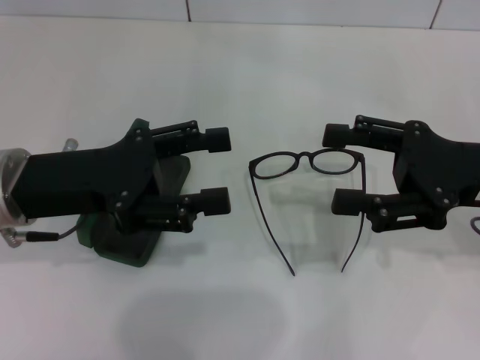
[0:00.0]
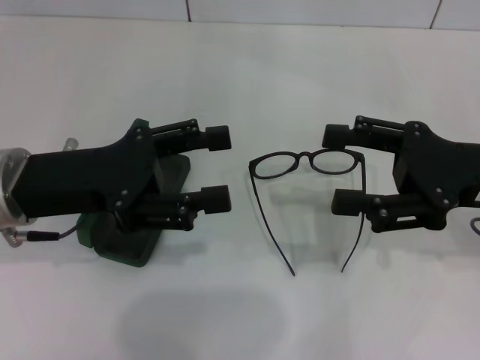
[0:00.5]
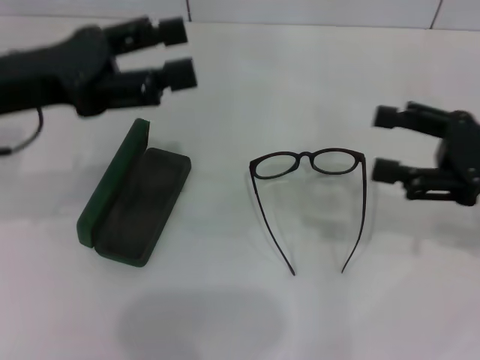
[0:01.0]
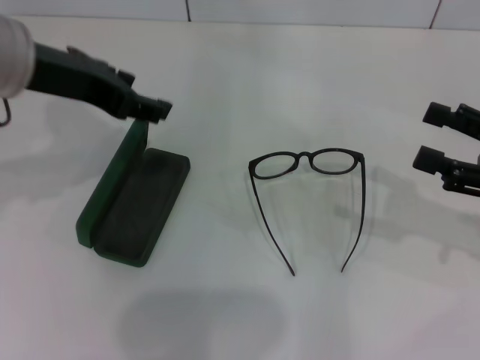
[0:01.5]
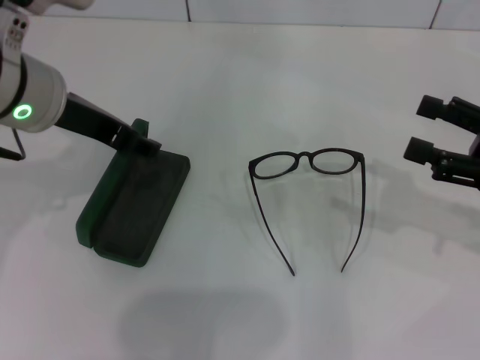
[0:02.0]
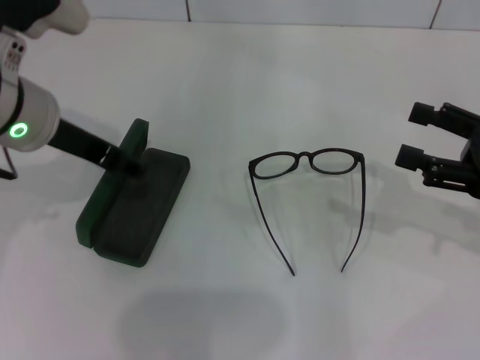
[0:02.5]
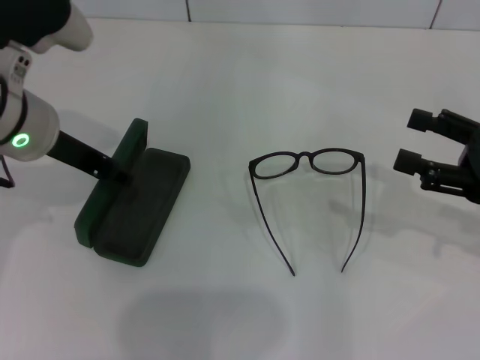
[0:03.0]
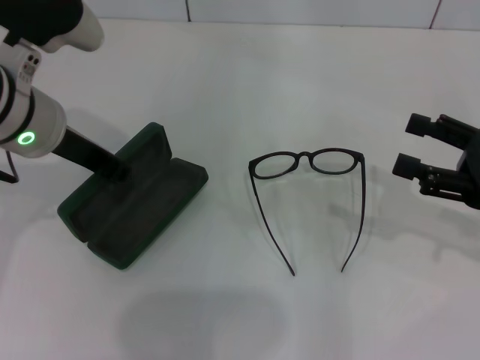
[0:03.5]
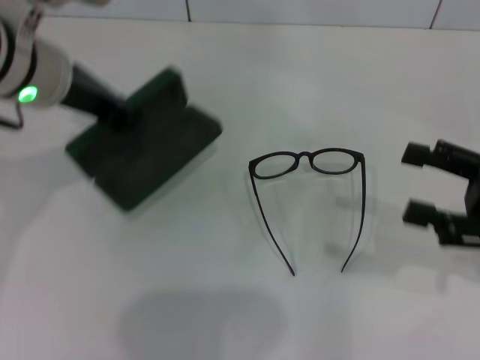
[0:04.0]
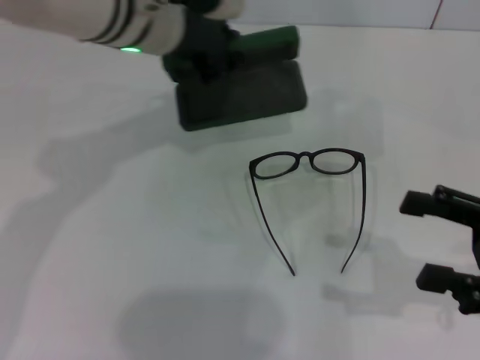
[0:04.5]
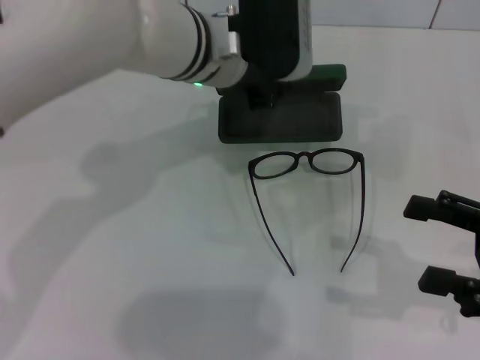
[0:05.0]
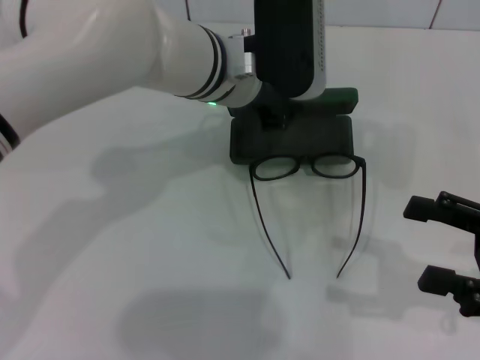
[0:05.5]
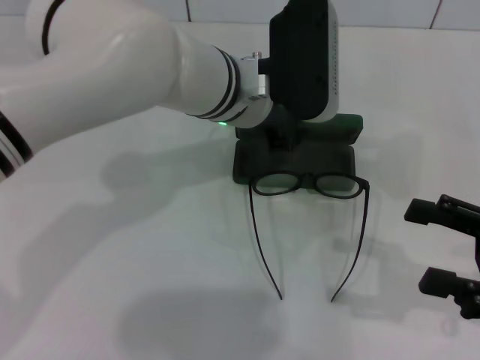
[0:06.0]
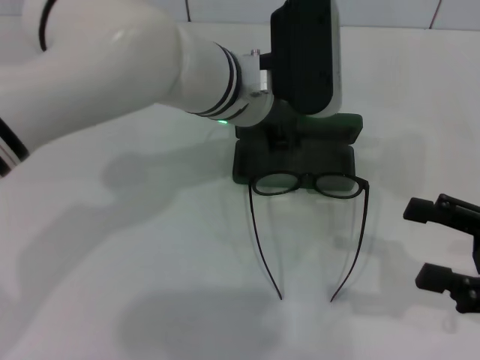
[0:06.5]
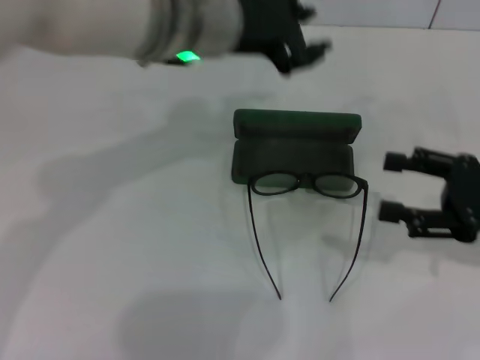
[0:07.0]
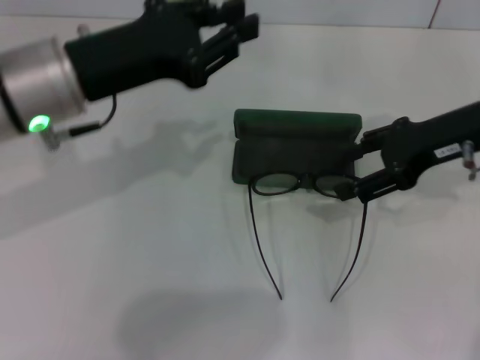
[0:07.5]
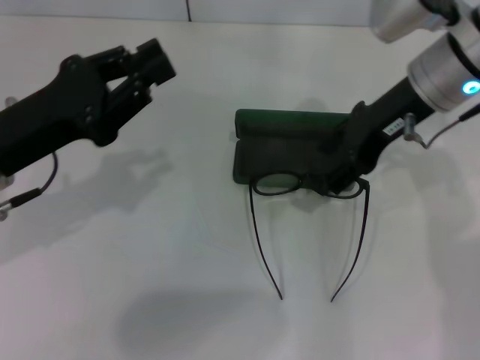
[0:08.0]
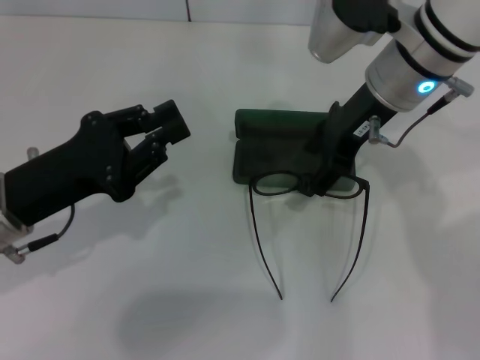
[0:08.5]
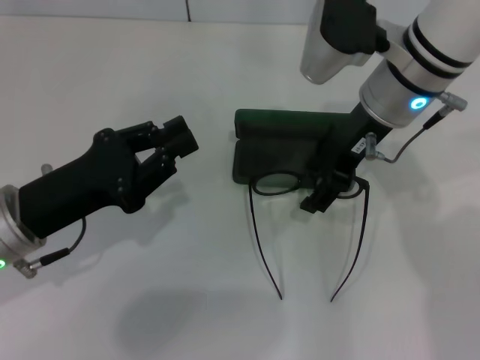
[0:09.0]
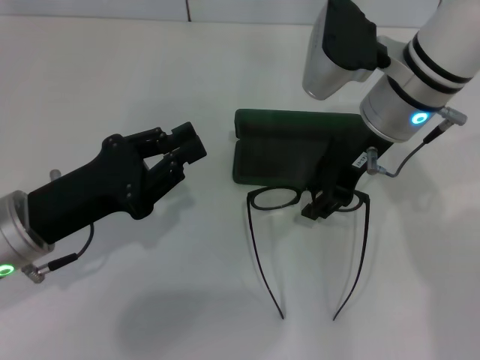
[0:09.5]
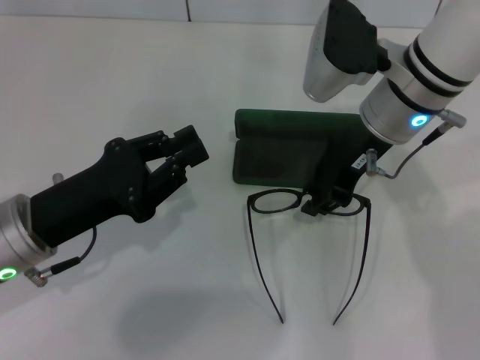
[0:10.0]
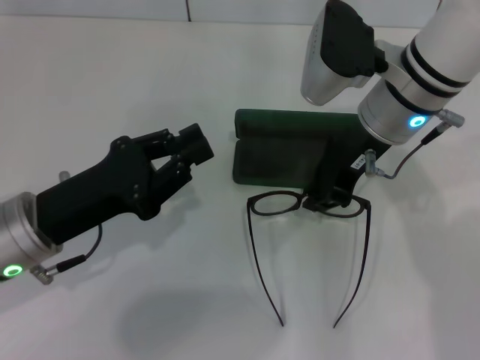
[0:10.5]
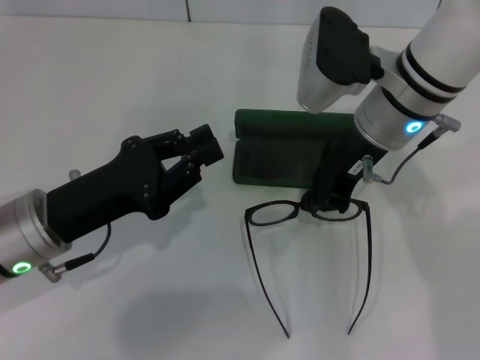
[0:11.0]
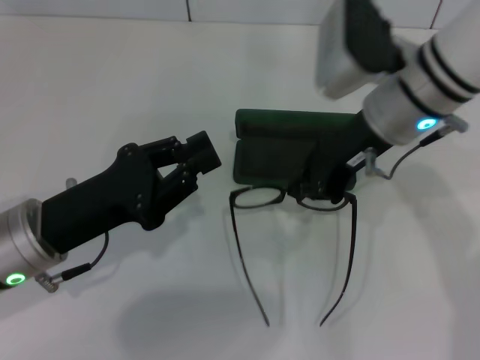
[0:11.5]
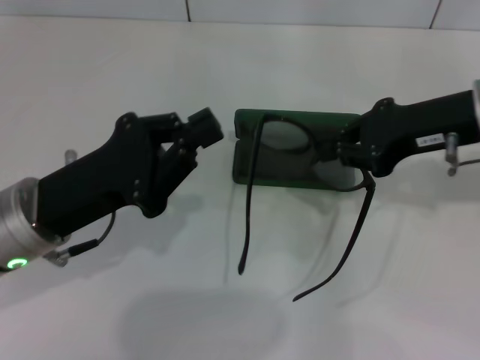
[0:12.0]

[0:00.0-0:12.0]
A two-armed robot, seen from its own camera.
Step, 0.0 to 3.0 s: Grab the glasses case with your left hand.
Step, 4.0 to 6.0 s: Place the glasses case in the center of the table with your left hand.
Step, 6.5 to 11.0 s: Grab the eyeglass frame with your right hand.
0.0 to 2.0 s: The right gripper shifts some 5 cm to the right, while the left gripper shifts roughly 10 cm upward and forward.
2.0 to 4.0 s: The left gripper closes up.
4.0 to 6.0 s: The left gripper travels to the right and downward by approximately 15 cm.
6.0 to 8.0 s: The right gripper heads forward, to the left and upward, covering roughly 25 cm. The left gripper moves to the left and backward, about 25 cm.
8.0 to 10.0 s: The right gripper changes place by some 5 cm, and closes up. Meanwhile the left gripper travels downward by roughly 5 cm.
10.0 to 12.0 s: The right gripper heads to the right, covering approximately 10 cm, and closes up.

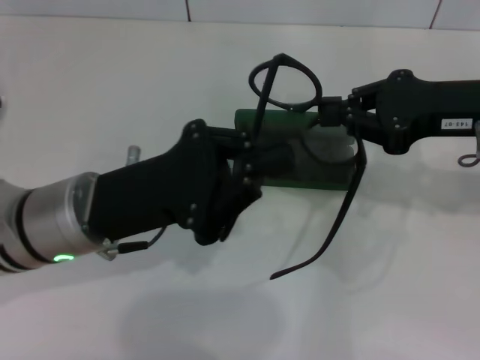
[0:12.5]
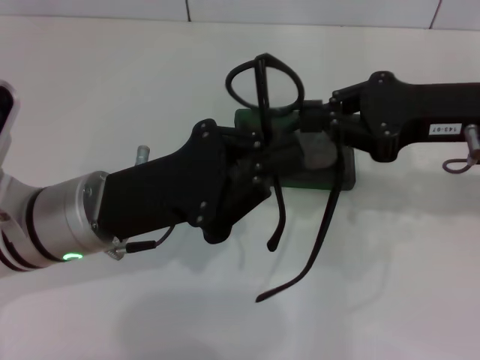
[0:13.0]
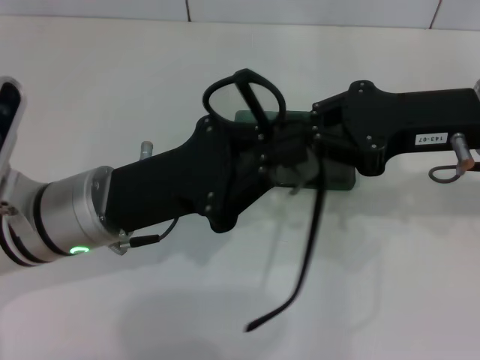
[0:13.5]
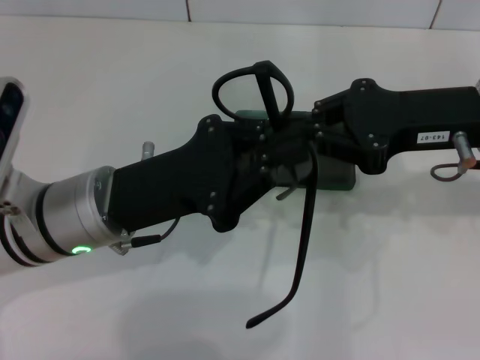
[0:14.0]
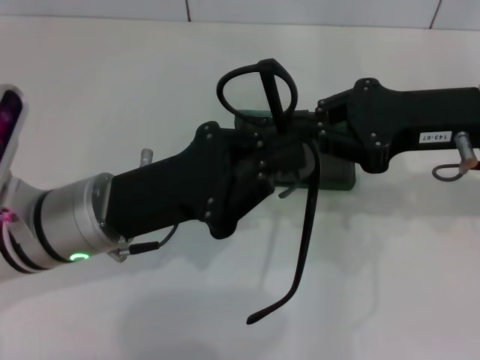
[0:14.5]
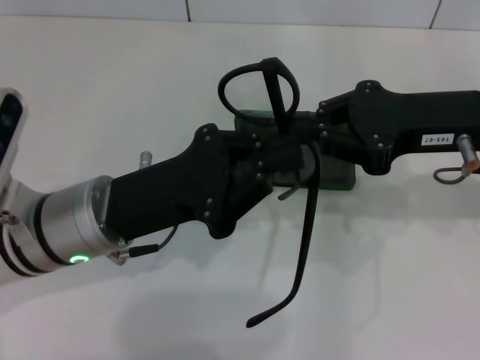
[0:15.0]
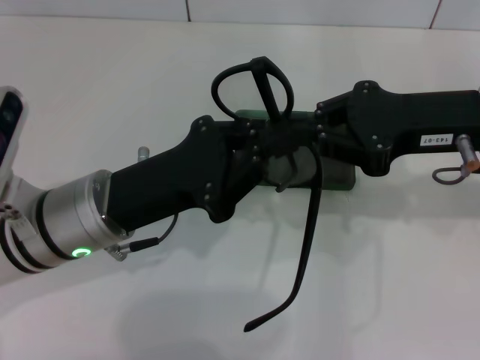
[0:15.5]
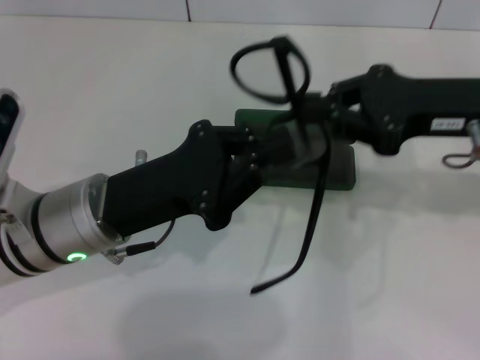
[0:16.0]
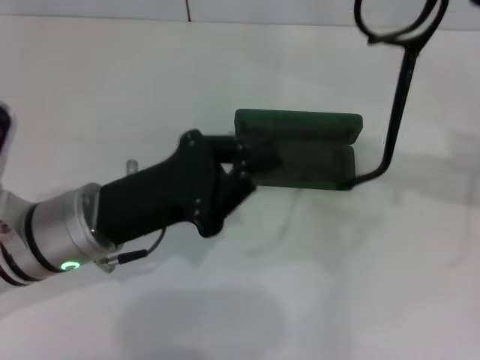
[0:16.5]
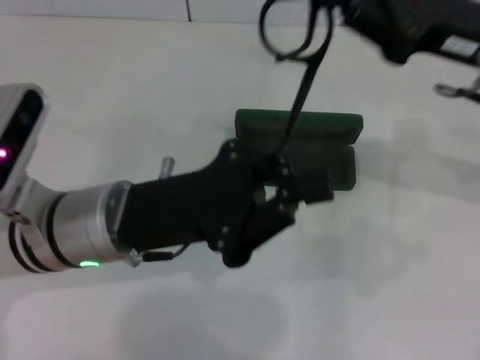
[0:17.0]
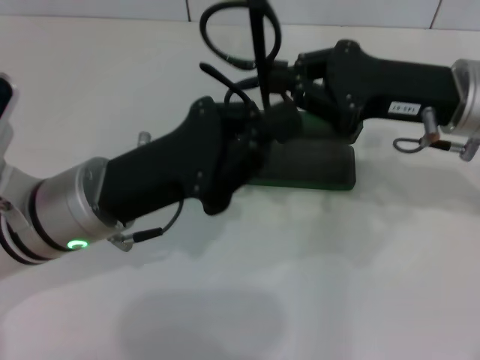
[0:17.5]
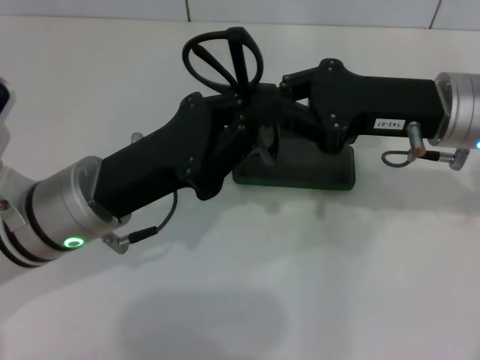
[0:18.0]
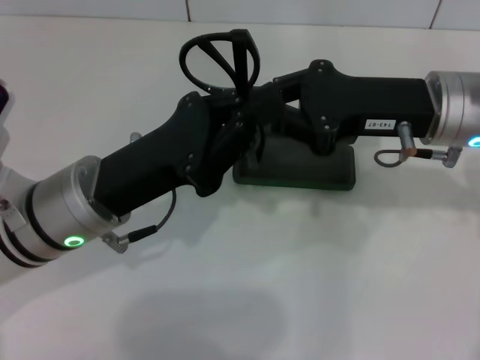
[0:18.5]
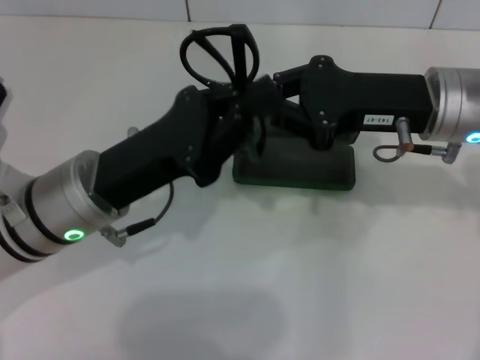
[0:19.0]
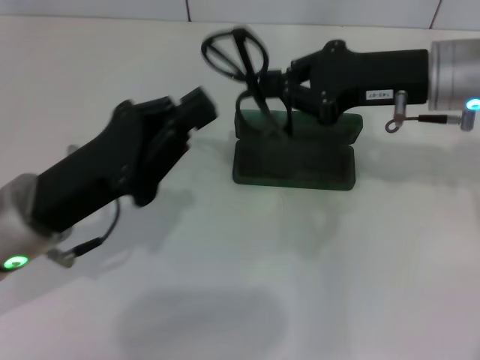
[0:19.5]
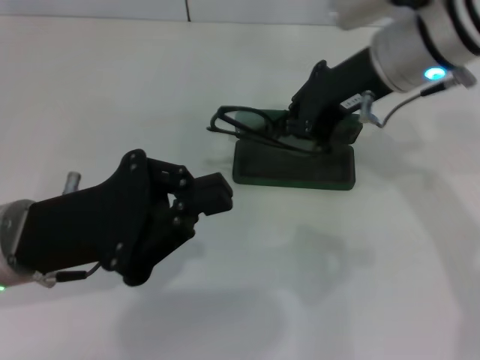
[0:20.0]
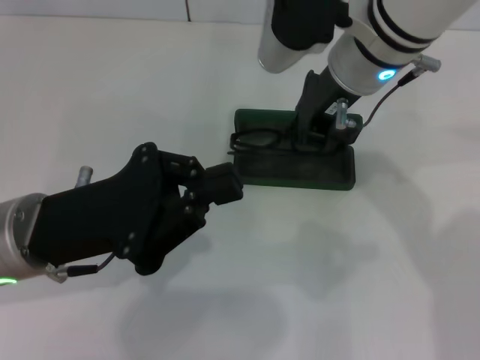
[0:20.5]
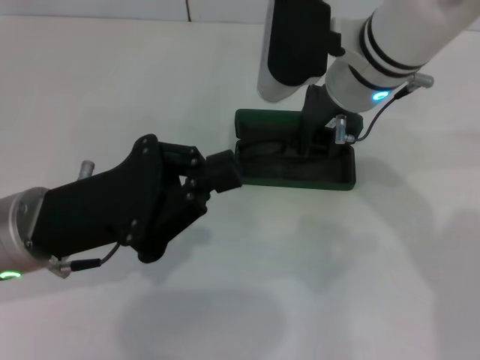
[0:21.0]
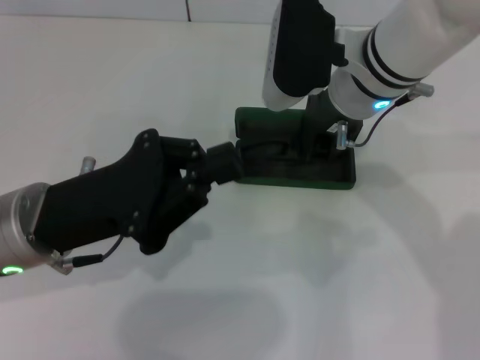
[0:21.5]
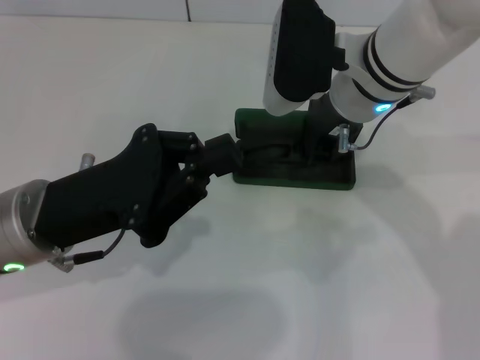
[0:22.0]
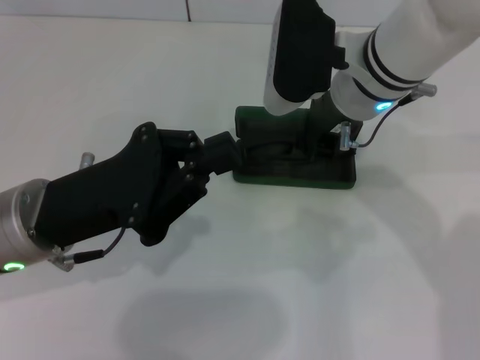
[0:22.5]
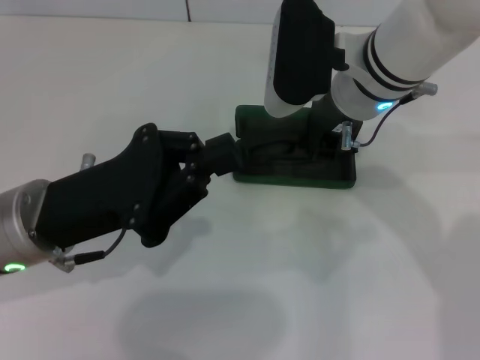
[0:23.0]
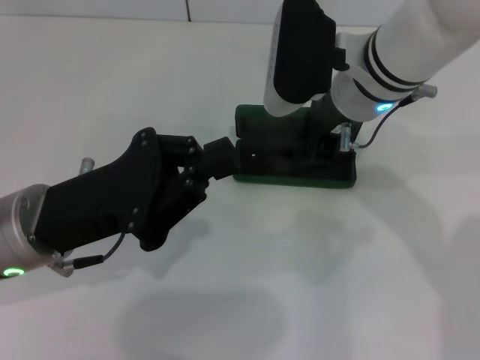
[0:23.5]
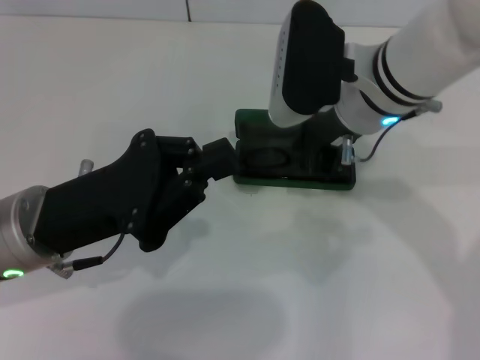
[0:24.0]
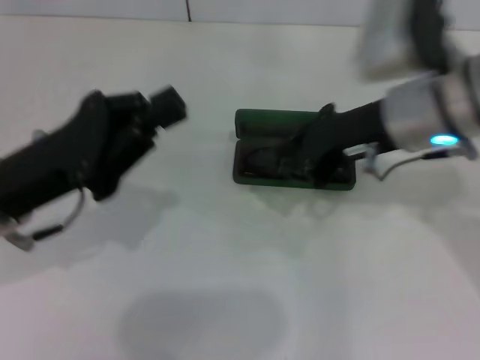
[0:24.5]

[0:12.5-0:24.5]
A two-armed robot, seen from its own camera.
Step, 12.5 to 19.0 s: Lift the glasses with your right hand.
Step, 19.5 to 23.5 s: Put the glasses into the case with your right hand.
12.5 to 14.5 s: The grippers make only small movements.
14.5 to 16.5 s: The right gripper heads to the right, covering approximately 5 cm.
16.5 to 18.5 s: The right gripper heads to the left and downward, covering roughly 15 cm.
18.5 to 20.5 s: The right gripper travels to the left by some 10 cm.
20.5 to 22.5 s: There are only small adjustments of the grippers.
22.5 to 24.5 s: The right gripper travels to the right and backward by approximately 10 cm.

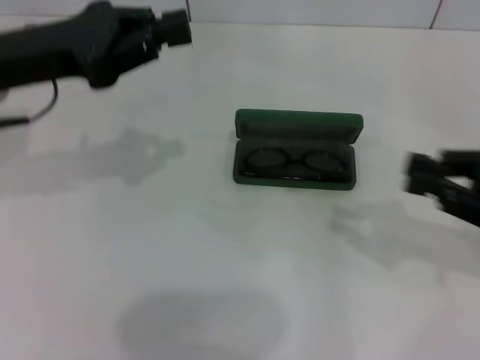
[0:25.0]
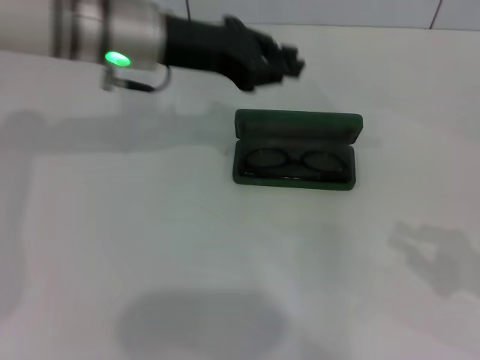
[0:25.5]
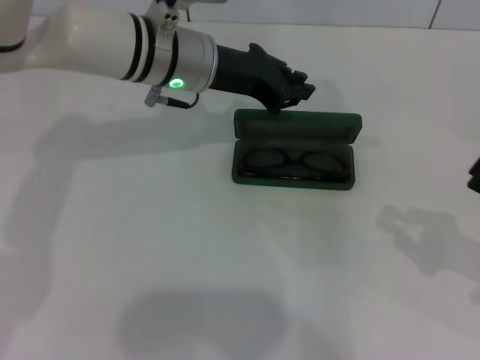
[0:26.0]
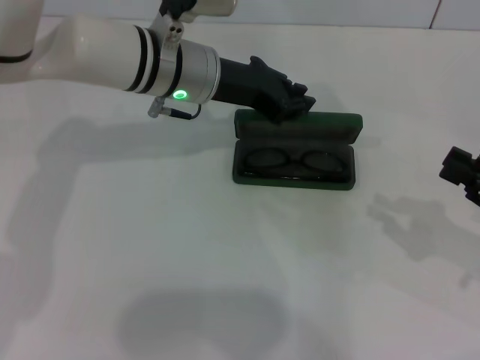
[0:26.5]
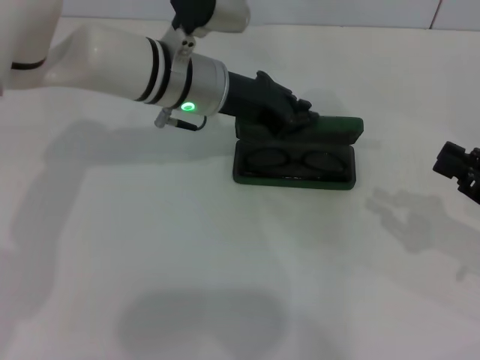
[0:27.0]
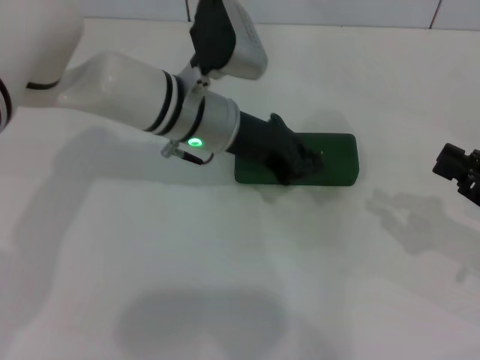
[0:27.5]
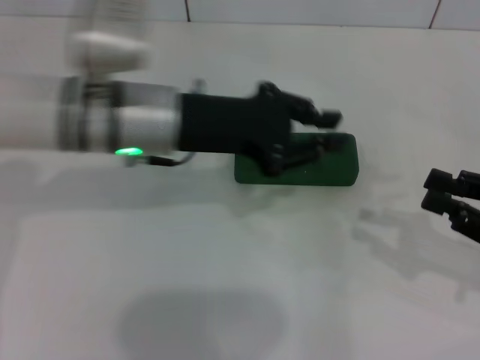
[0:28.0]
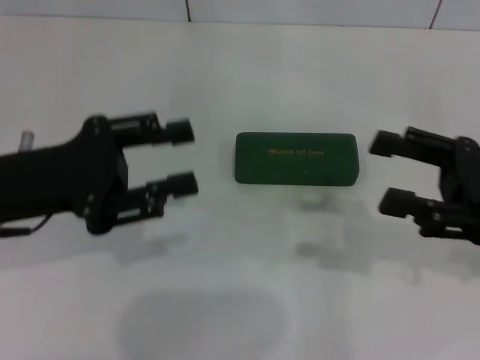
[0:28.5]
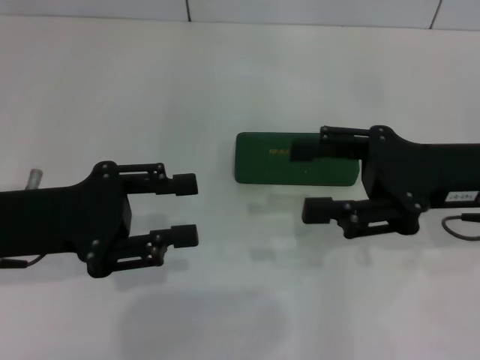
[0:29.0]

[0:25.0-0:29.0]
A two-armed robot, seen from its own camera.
Step, 25.0 to 27.0 s: Close the glasses case with your left hand.
25.0 to 27.0 s: The left gripper travels to the right, forward and downward by about 20 cm.
27.0 to 29.0 s: The right gripper goes roughly 15 cm to the left, upward and forward, and opens its fingers. Meanwhile the left gripper is displaced to the left and backward by some 25 cm, and opens.
